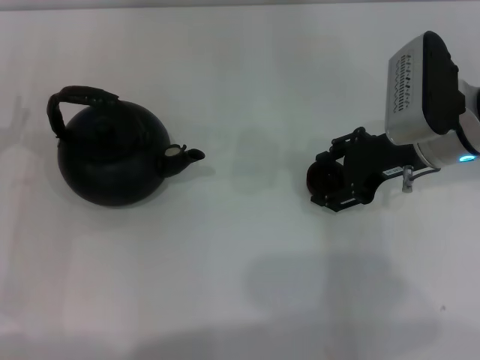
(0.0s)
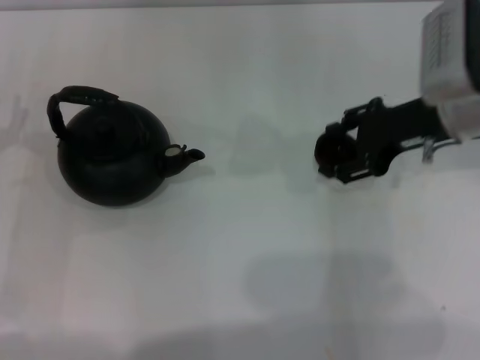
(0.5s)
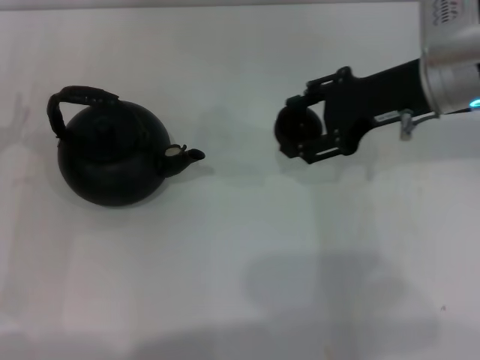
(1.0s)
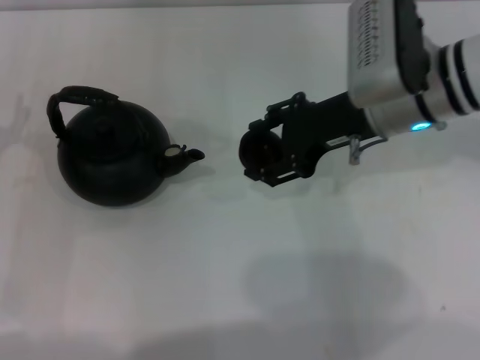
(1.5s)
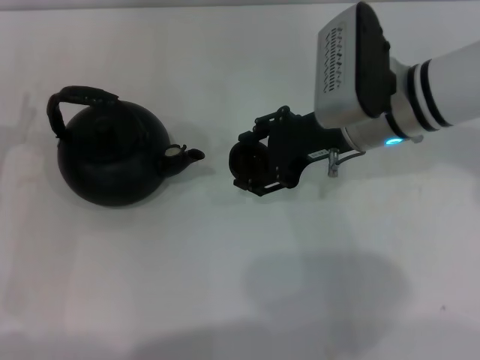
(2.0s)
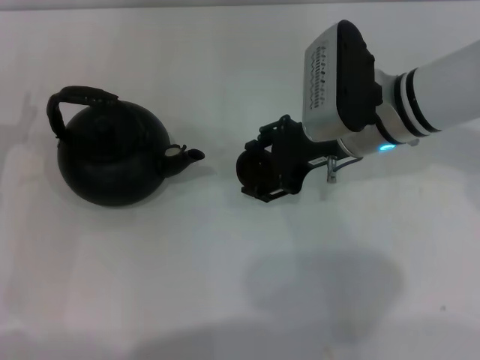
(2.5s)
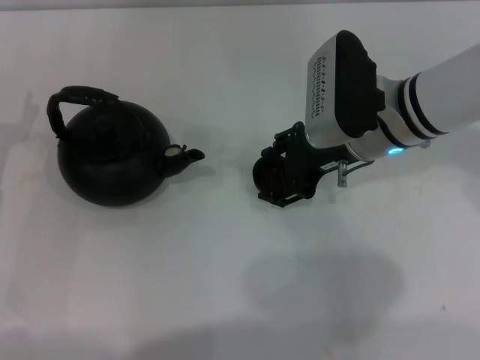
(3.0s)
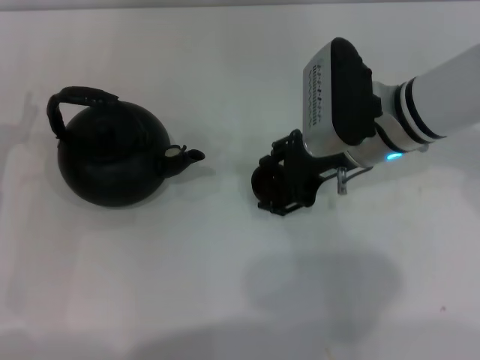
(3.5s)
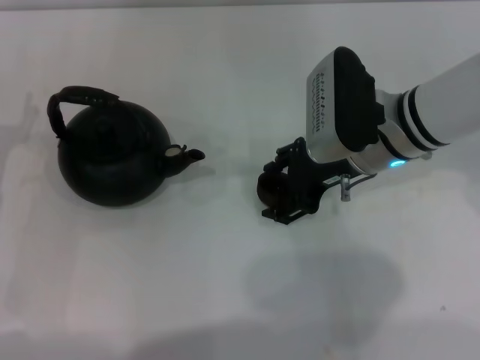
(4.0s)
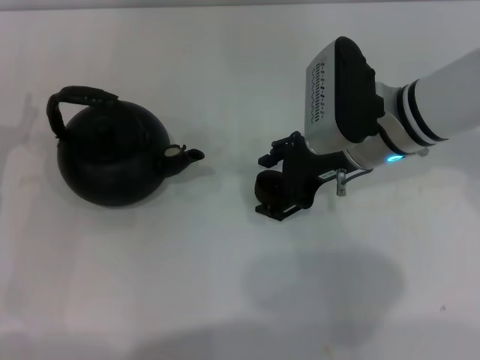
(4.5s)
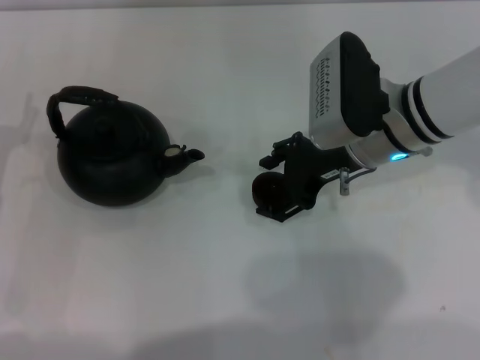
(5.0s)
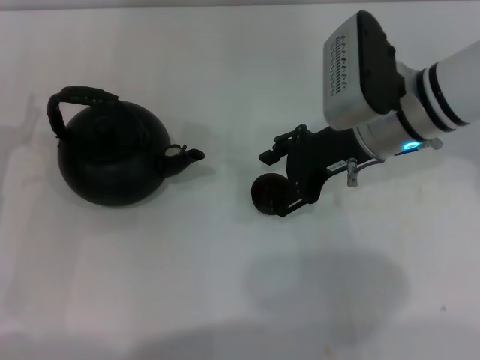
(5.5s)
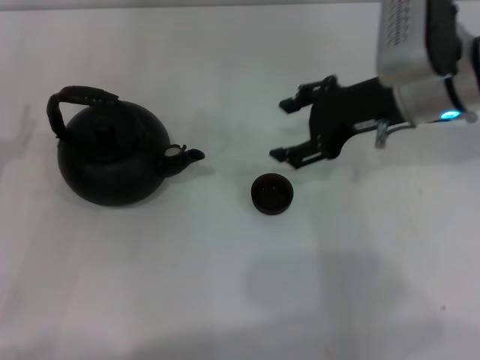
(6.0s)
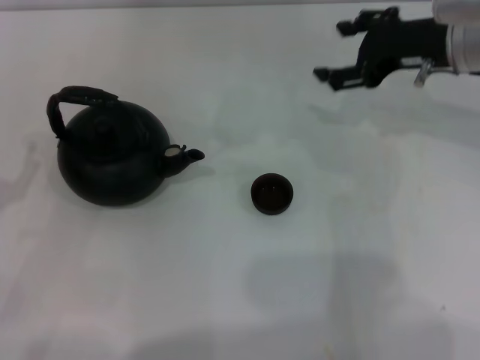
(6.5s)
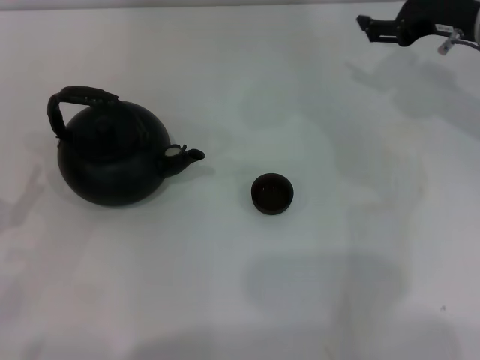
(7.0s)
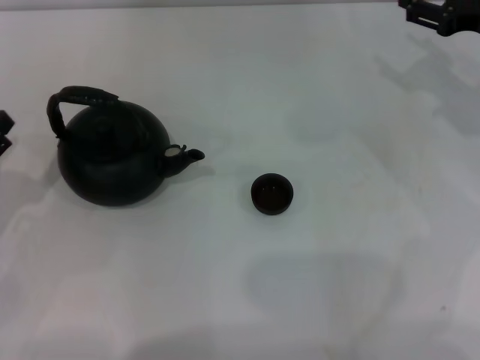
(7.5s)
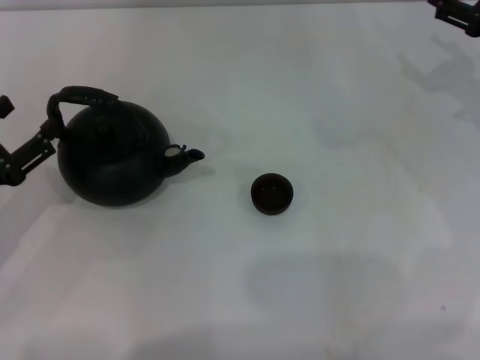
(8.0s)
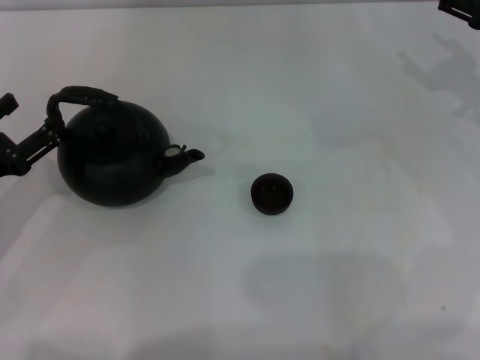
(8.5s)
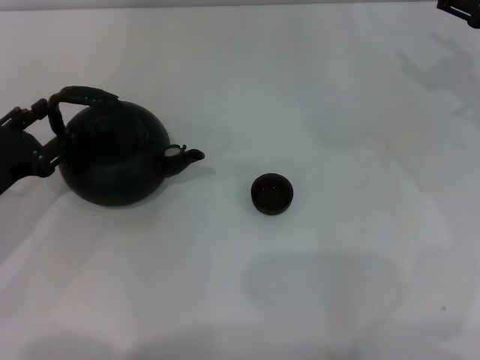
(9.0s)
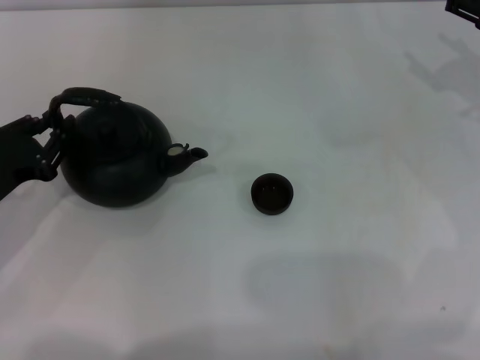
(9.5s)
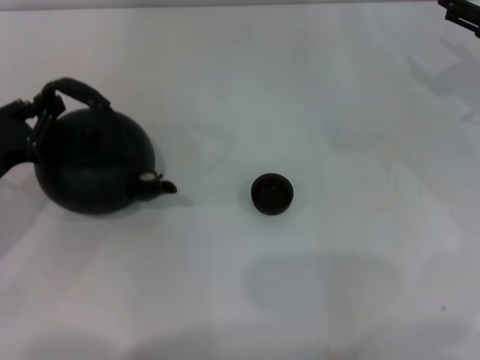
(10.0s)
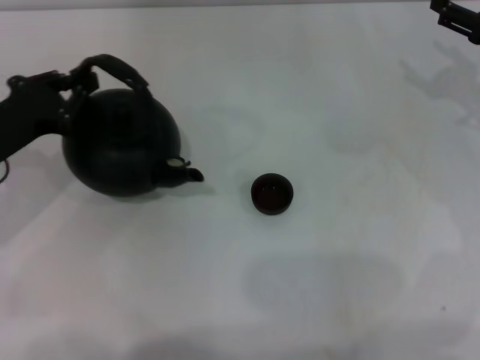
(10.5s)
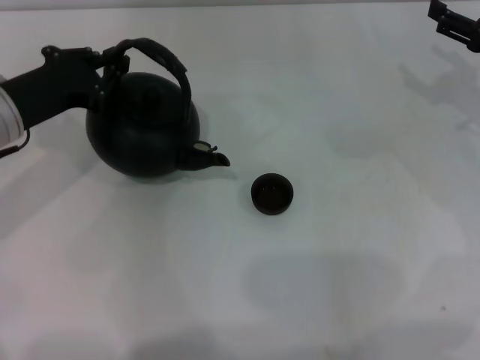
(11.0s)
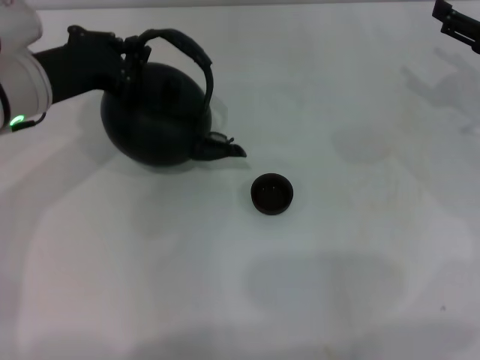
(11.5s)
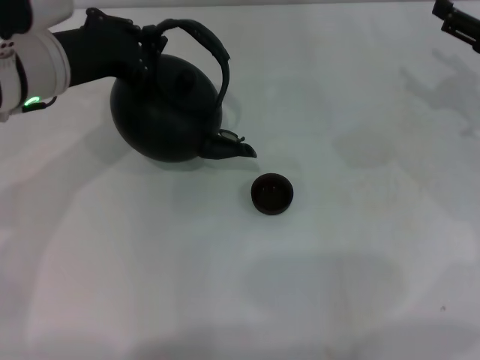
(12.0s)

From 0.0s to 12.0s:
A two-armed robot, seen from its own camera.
Task of the whole recording: Grasp the handle of the teapot with one hand and pour tea into the teacup.
Step, from 1.0s to 5.0s: Place the teacup in the center of view with the right gripper.
Step, from 5.5s to 11.0s: Pick up the teapot with the left gripper.
From 0.0s to 2.0s: The right gripper heads to the left, covering roughly 5 cm.
From 2.0s to 4.0s: There are only small adjustments of the grippers.
From 4.0s to 6.0s: The right gripper is displaced upward by about 5 cm.
From 6.0s to 8.0s: The right gripper goes some 15 cm to the right.
From 8.0s to 10.0s: The left gripper closes its fingers.
From 10.0s to 12.0s: The left gripper goes roughly 20 cm to the right, upward and forward.

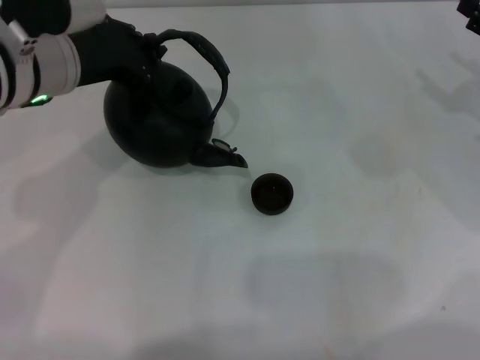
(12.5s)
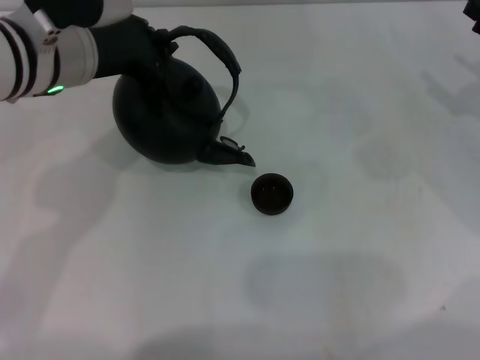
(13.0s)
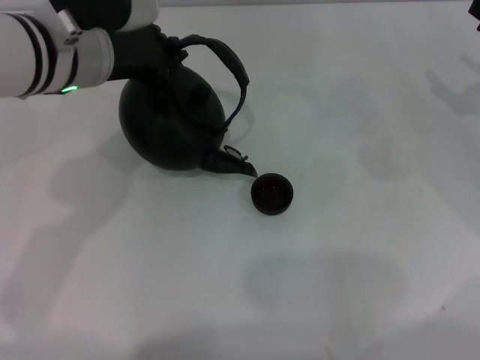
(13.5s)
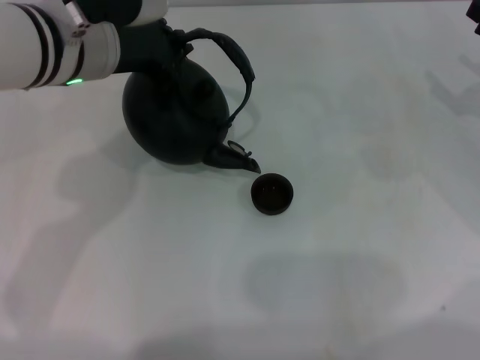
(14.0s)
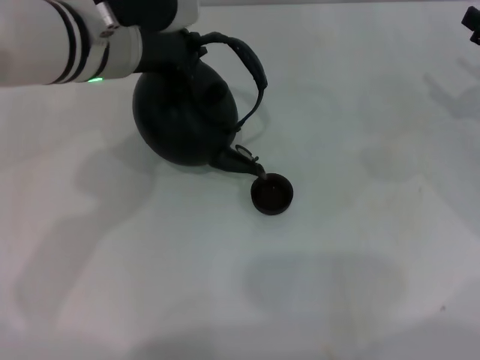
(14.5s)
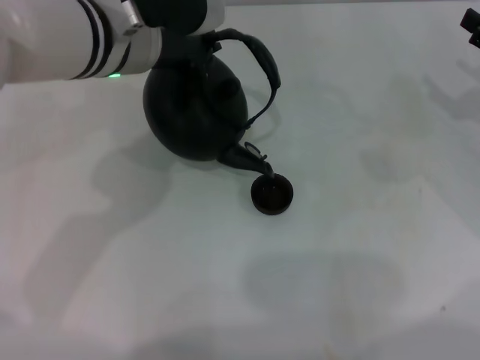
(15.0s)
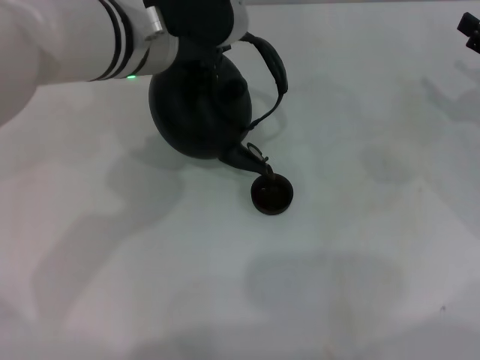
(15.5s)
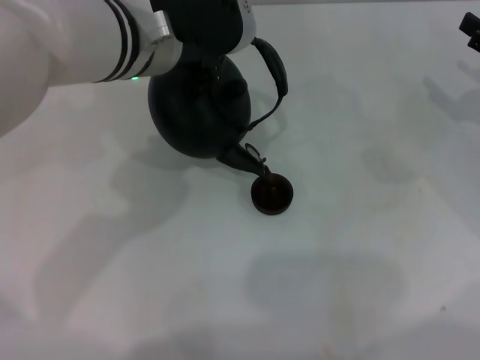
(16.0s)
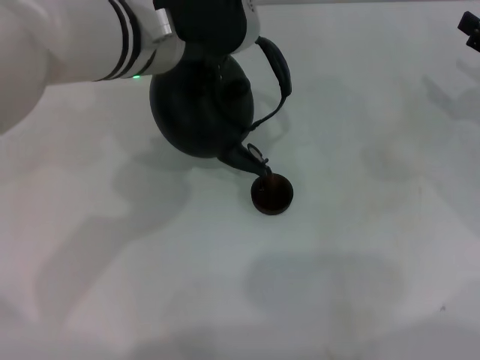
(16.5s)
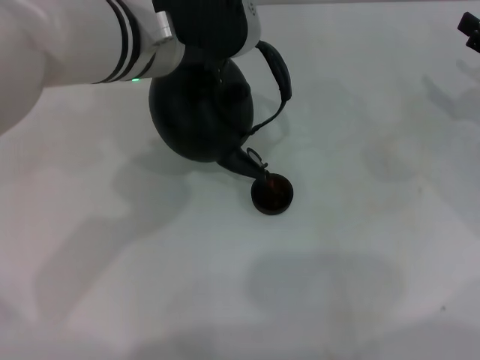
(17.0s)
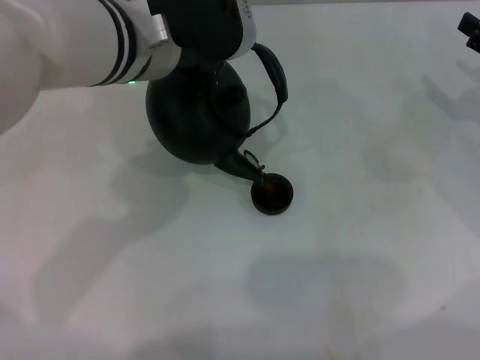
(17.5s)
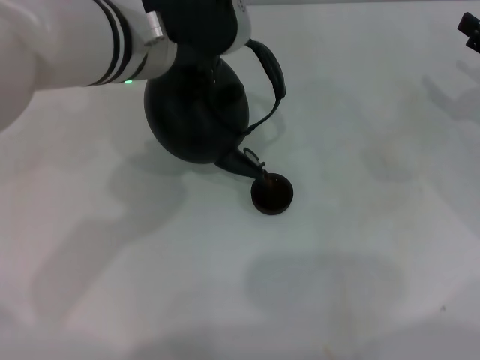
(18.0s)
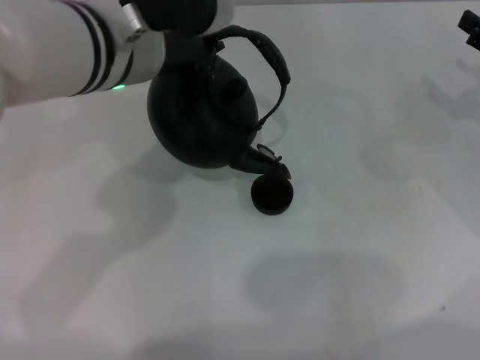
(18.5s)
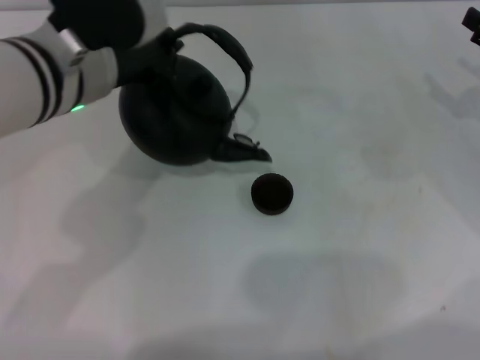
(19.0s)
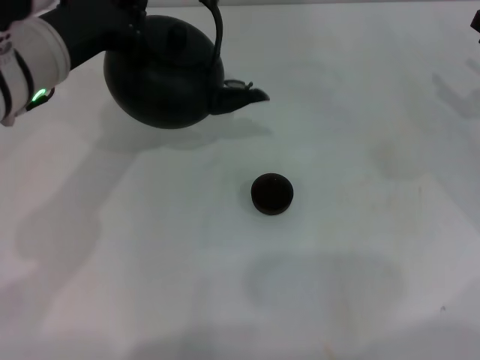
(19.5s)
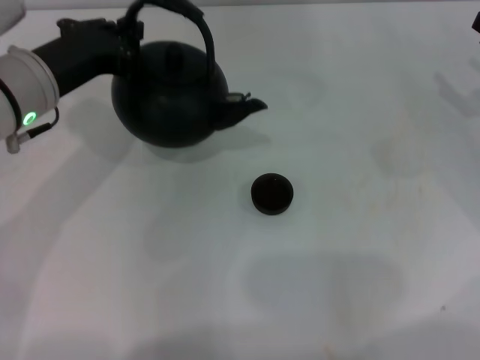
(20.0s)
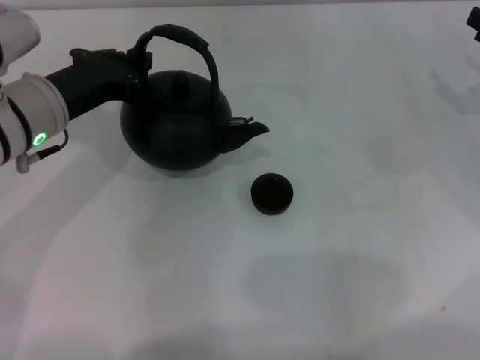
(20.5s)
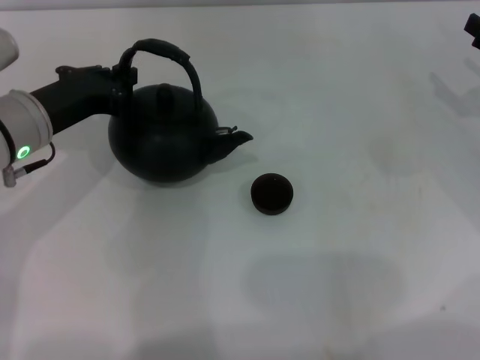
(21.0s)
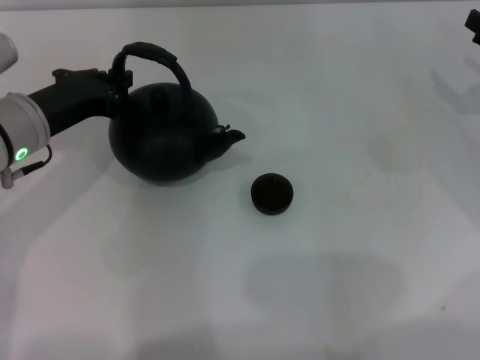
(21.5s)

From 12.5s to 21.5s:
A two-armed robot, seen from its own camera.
Task of the whole recording: Grasp the handle of the teapot with one hand and pour tea into the teacup.
Step, from 12.5s to 18.5s: Pour tea into the teacup with the left gripper.
From 12.5s to 14.5s: The left gripper heads to the right, covering about 5 cm.
From 14.5s to 17.0s: The grippers move only a little.
From 17.0s to 19.5s: The left gripper travels to the left by approximately 10 cm.
From 19.5s to 21.5s: The left gripper heads downward, covering roughly 10 cm.

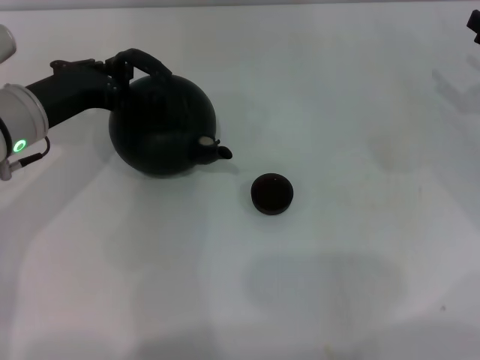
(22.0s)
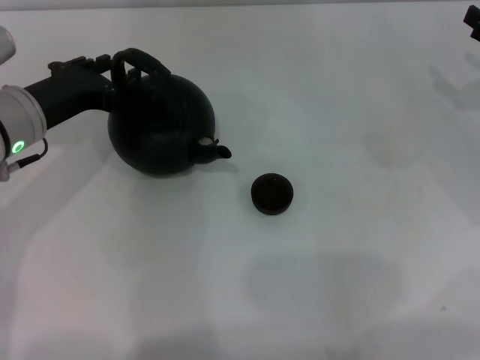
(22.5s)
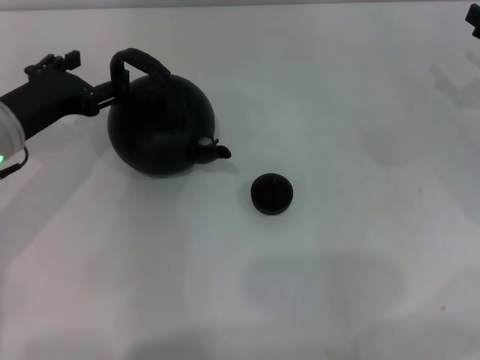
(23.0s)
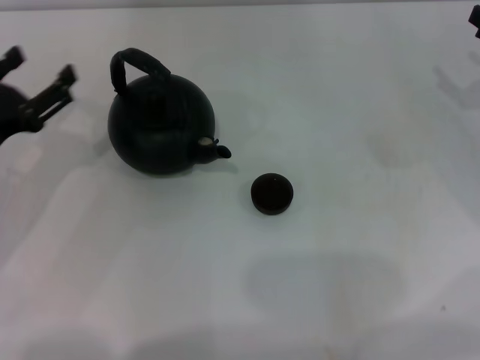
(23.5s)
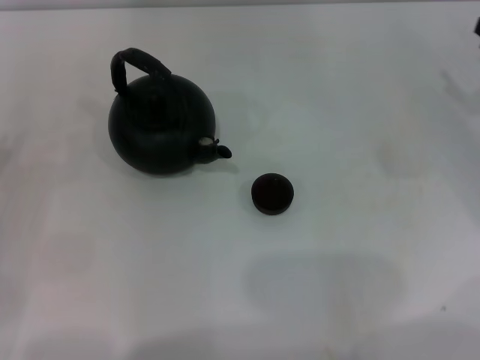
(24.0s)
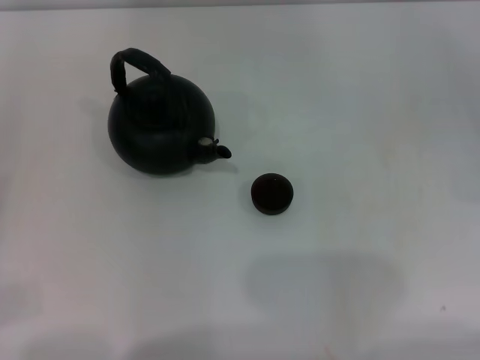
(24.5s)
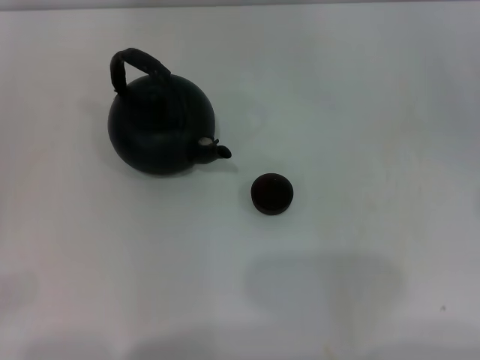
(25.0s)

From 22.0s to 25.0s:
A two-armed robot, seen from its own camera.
Task of the whole recording: Grasp the handle of the teapot with one hand and pour tea into the teacup.
From 22.0s to 23.5s: The left gripper heads backward and to the left, covering approximately 10 cm, and opens up.
From 23.5s to 25.0s: The left gripper is displaced to the left and backward by some 15 cm.

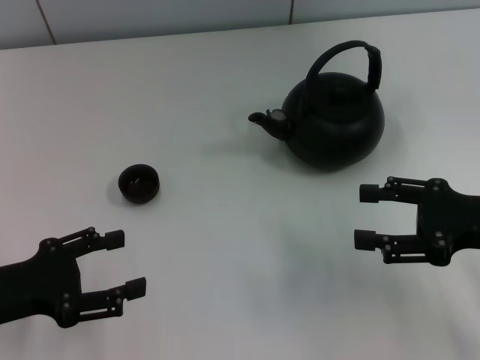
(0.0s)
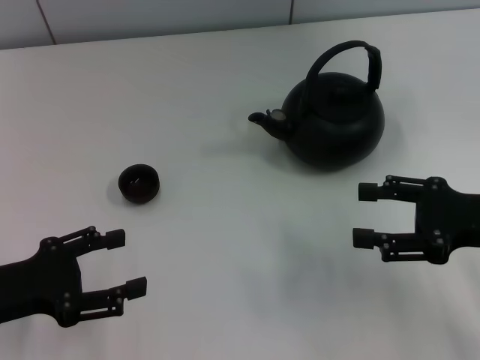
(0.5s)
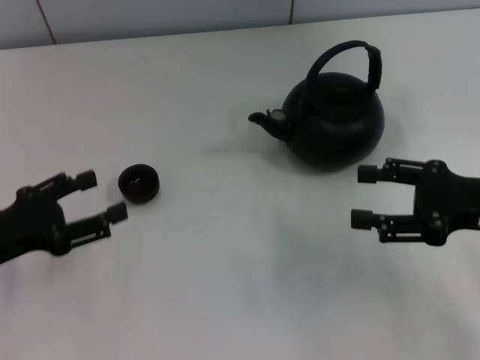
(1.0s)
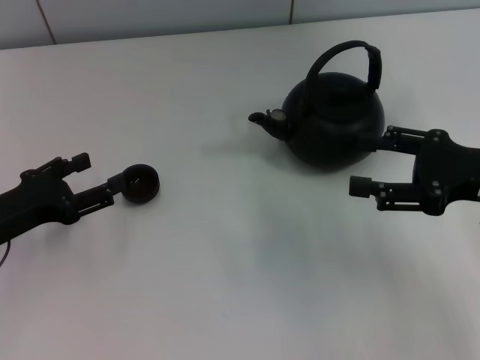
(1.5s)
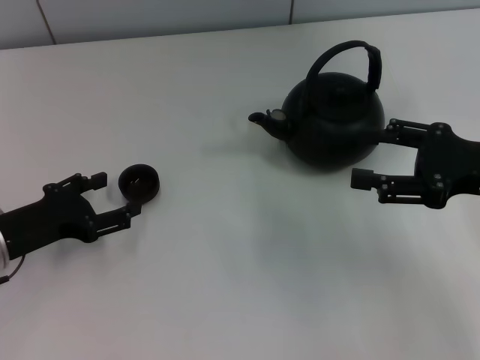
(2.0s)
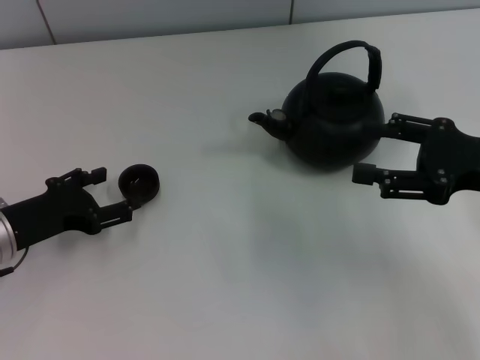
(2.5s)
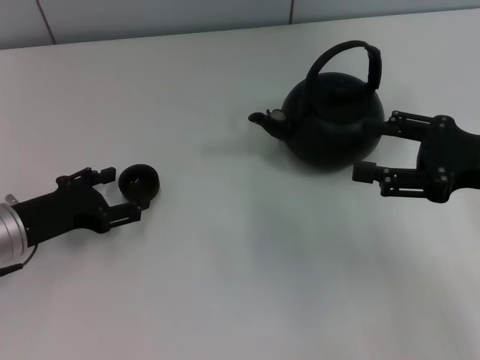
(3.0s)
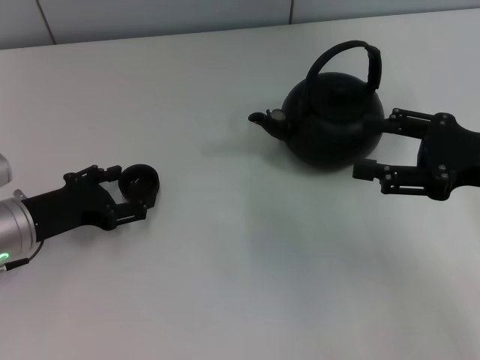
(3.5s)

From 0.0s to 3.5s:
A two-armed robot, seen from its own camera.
Task of the whole recording: Grasp the handle of the teapot with one hand and pour tea into the teacup.
From 0.0s to 2.0s: The left gripper travels forward by about 5 cm.
From 2.0s to 3.5s: There are only small adjustments of the grippers.
